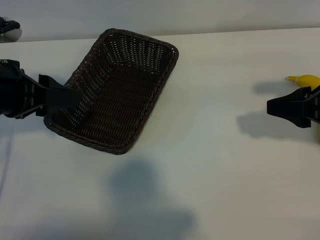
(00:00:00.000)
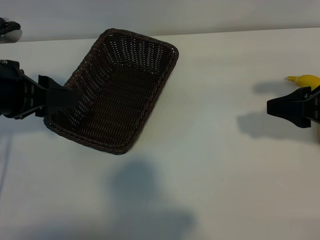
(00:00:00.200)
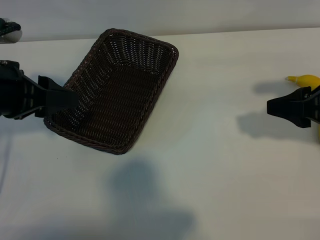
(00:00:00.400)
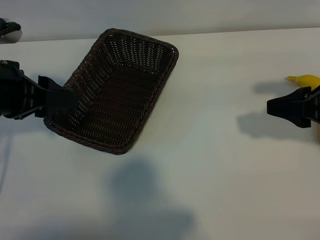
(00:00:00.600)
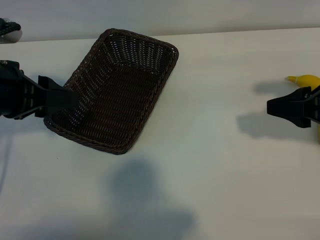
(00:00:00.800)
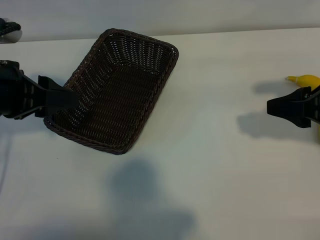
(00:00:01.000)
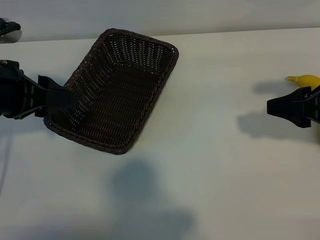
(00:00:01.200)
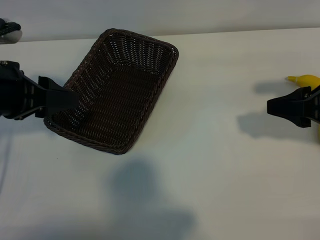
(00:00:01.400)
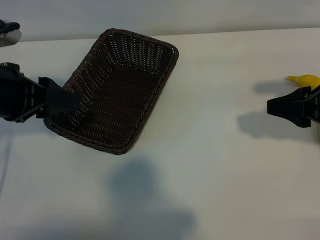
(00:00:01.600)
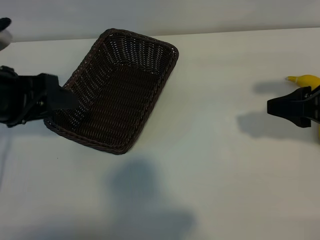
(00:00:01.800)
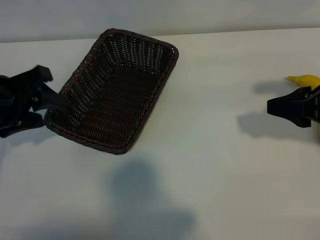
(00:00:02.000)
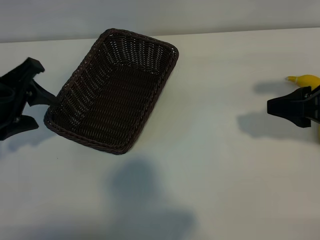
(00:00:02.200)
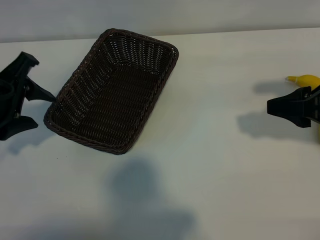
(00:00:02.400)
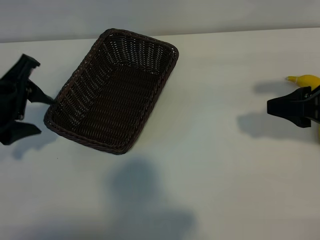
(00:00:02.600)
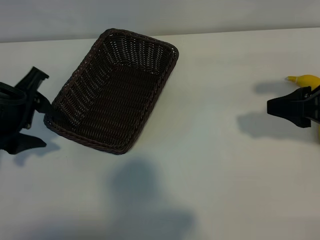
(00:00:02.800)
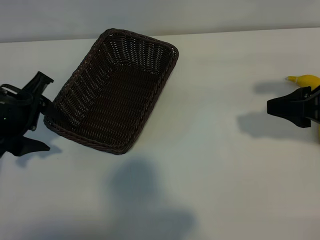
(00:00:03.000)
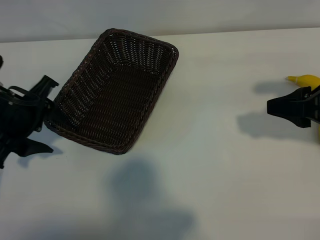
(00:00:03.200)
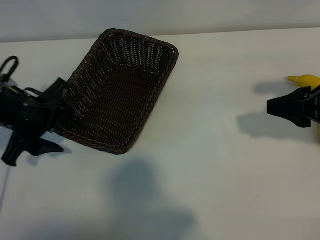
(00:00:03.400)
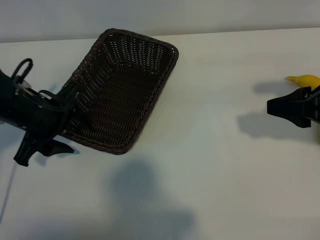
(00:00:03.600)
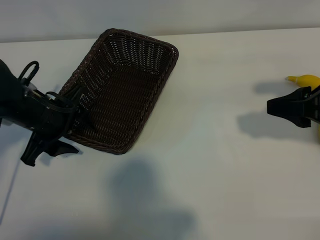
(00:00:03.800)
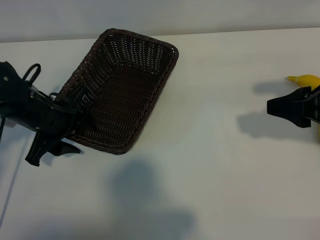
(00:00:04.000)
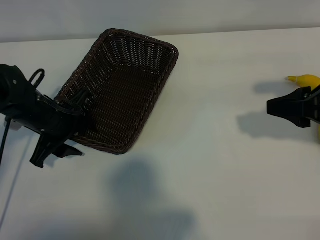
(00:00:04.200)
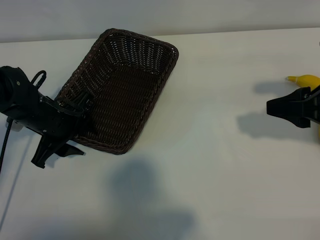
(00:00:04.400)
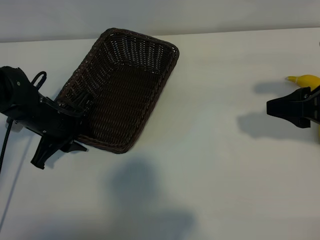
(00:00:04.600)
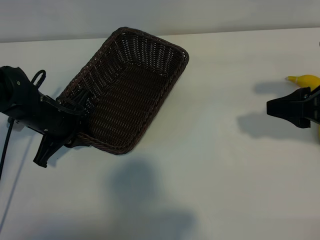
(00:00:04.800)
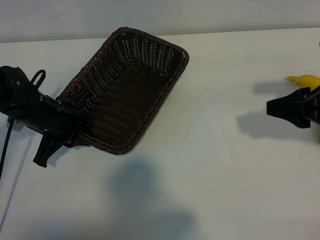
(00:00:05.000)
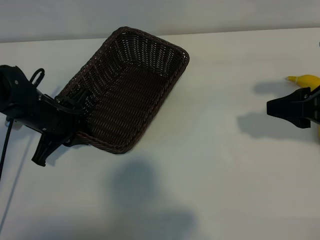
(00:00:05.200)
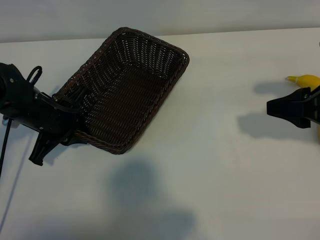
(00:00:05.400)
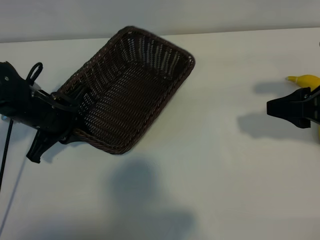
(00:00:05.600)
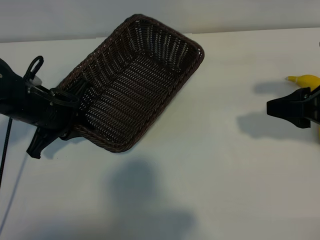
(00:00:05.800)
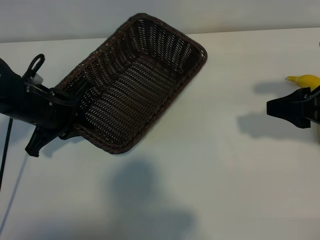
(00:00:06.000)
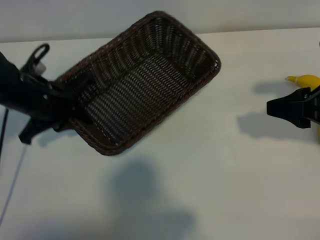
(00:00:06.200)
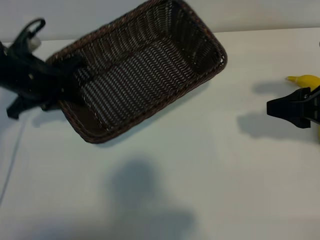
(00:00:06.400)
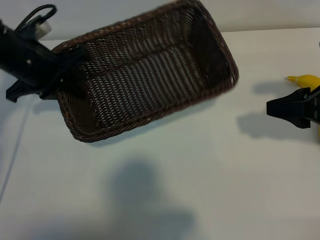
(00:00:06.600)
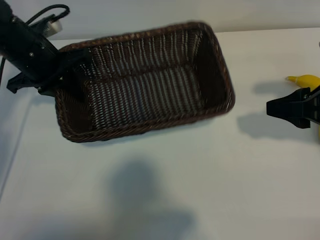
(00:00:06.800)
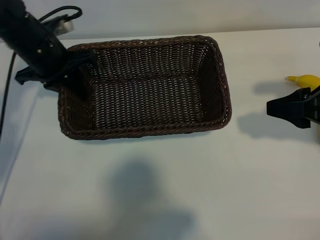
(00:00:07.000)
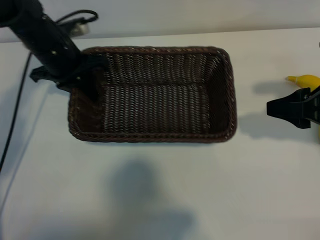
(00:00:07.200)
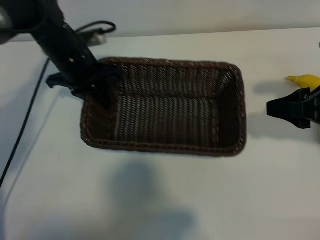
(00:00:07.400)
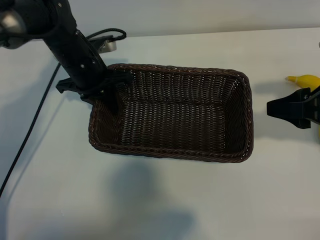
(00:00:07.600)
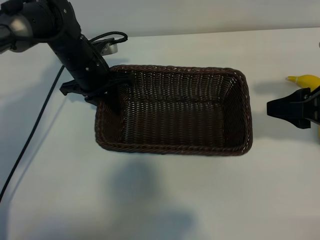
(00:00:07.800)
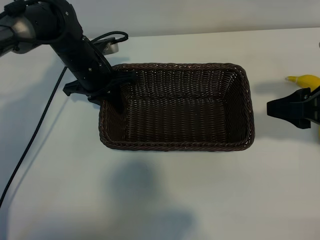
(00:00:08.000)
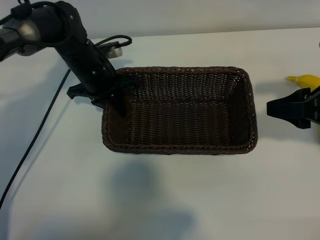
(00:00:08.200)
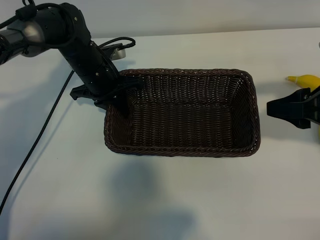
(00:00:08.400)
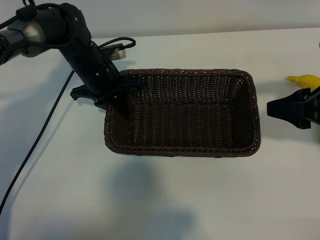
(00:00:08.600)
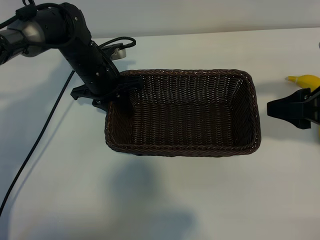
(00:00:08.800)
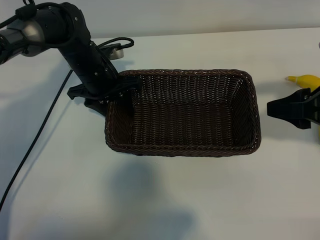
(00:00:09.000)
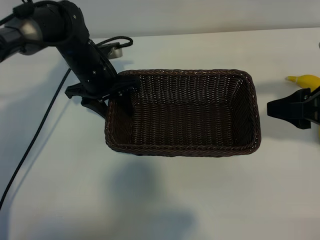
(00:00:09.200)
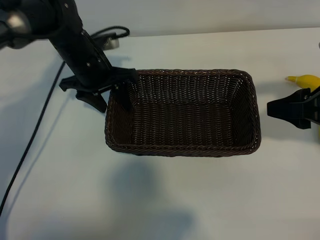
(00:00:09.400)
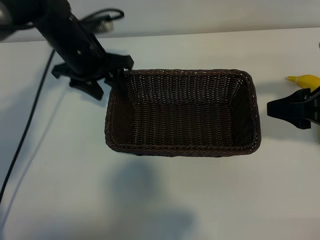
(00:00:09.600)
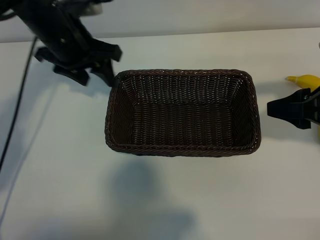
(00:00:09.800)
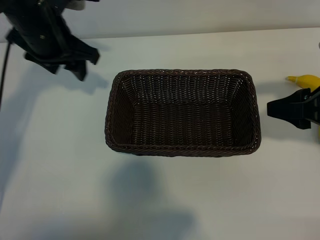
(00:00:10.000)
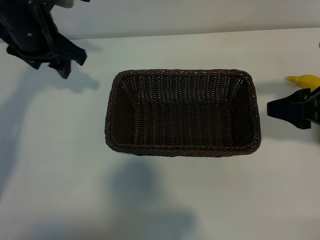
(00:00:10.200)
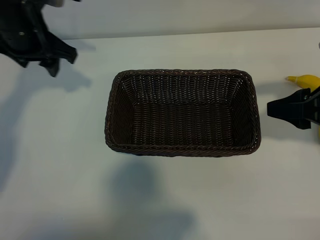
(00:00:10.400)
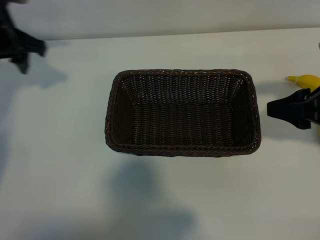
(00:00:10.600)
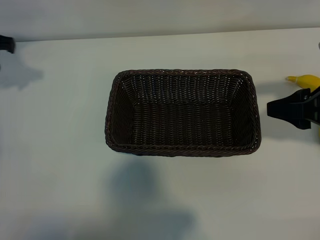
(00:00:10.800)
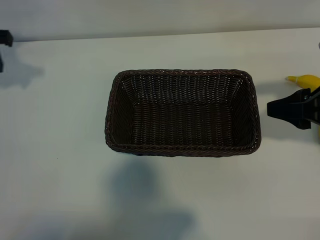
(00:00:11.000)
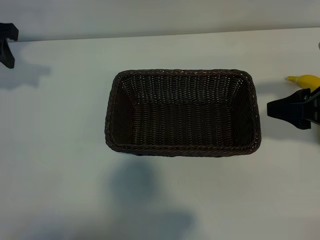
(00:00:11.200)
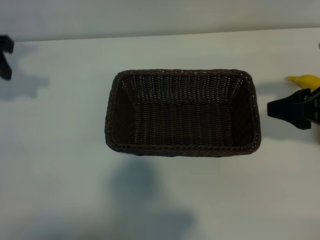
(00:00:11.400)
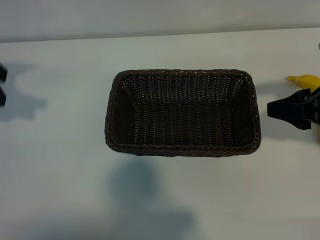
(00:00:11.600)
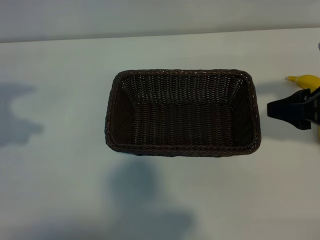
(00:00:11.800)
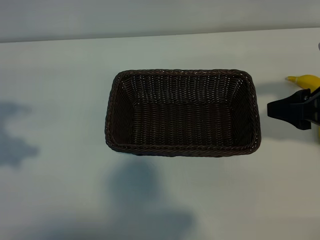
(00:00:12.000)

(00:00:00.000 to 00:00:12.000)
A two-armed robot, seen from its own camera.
Task of the whole recording: pick up the banana and put it into the basket.
Step, 00:00:00.000 - 00:00:05.000: Grasp the basket with the left gripper.
Step, 00:00:05.200 - 00:00:09.200: Place the basket in the center of the table with the left gripper.

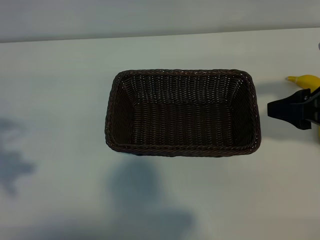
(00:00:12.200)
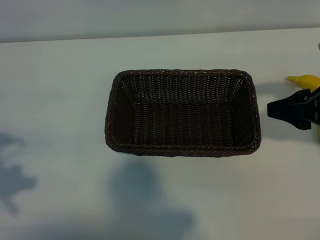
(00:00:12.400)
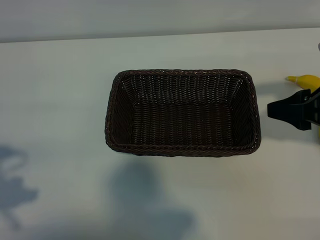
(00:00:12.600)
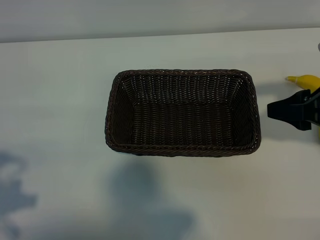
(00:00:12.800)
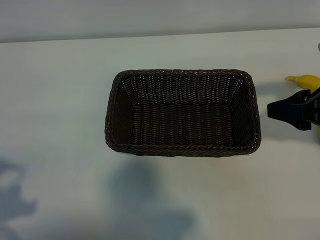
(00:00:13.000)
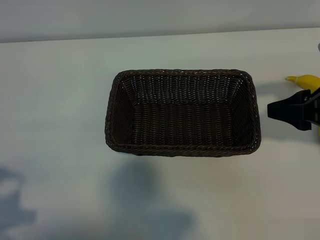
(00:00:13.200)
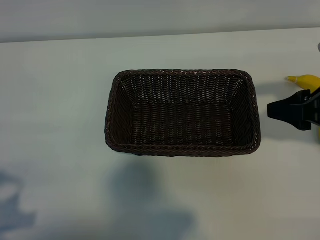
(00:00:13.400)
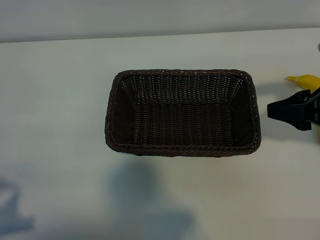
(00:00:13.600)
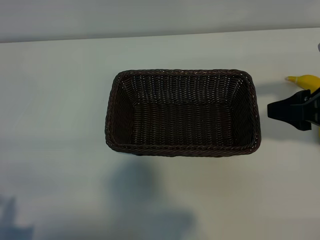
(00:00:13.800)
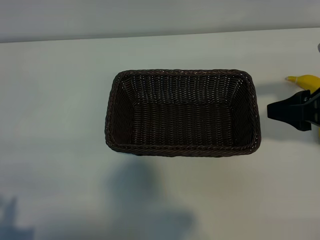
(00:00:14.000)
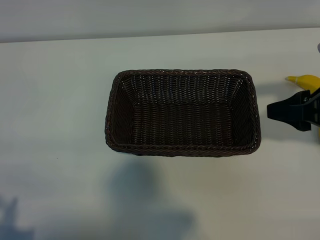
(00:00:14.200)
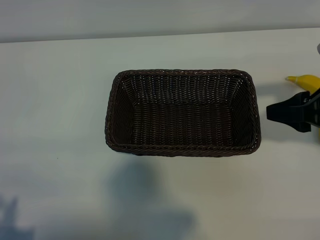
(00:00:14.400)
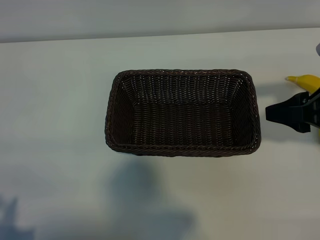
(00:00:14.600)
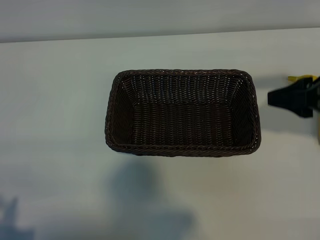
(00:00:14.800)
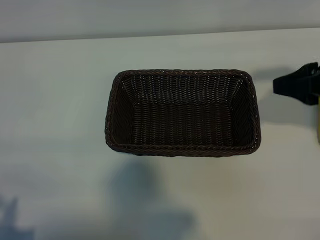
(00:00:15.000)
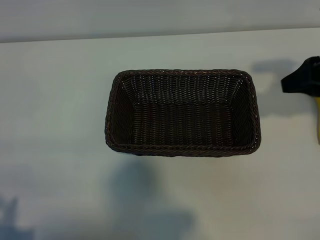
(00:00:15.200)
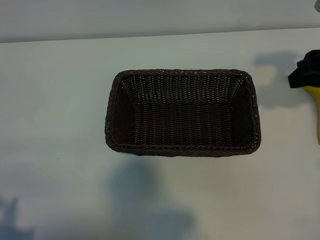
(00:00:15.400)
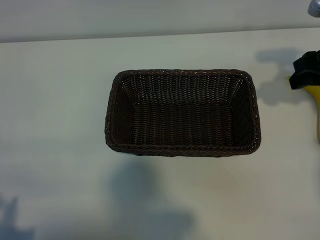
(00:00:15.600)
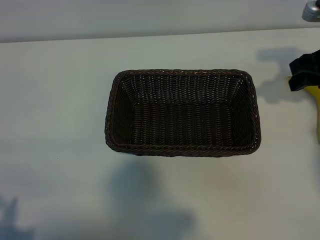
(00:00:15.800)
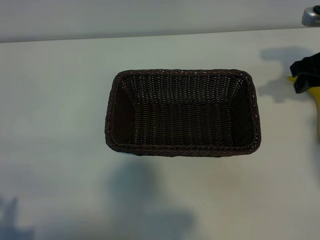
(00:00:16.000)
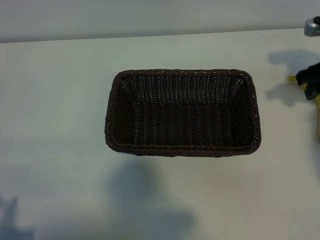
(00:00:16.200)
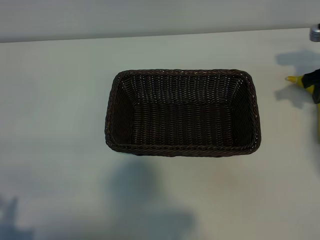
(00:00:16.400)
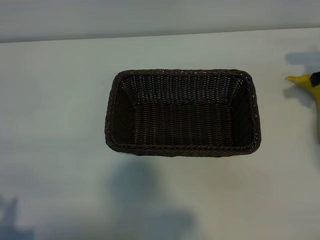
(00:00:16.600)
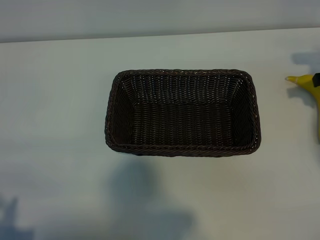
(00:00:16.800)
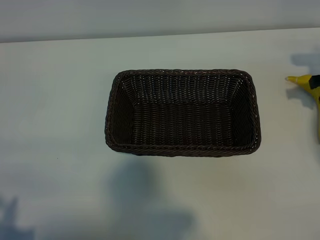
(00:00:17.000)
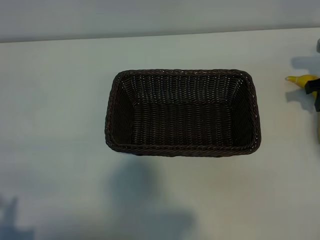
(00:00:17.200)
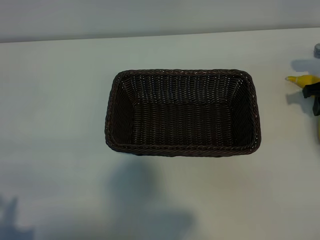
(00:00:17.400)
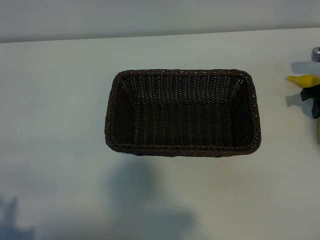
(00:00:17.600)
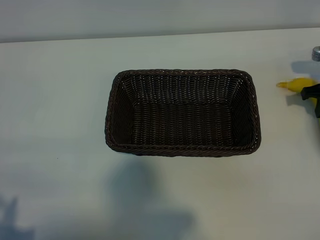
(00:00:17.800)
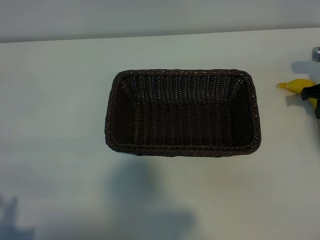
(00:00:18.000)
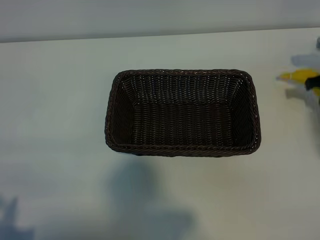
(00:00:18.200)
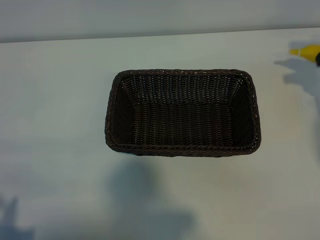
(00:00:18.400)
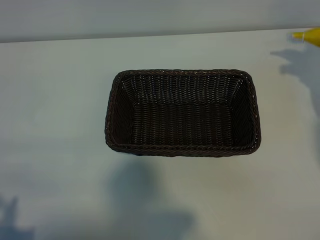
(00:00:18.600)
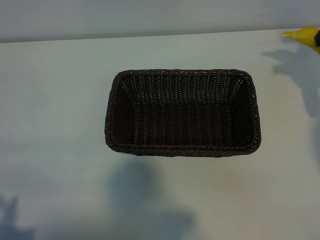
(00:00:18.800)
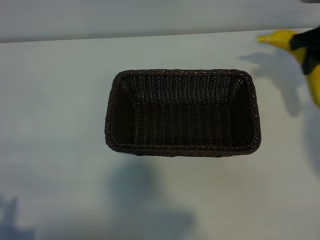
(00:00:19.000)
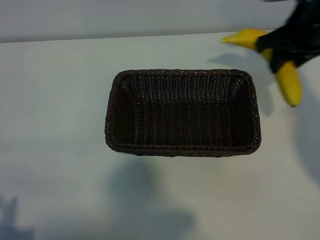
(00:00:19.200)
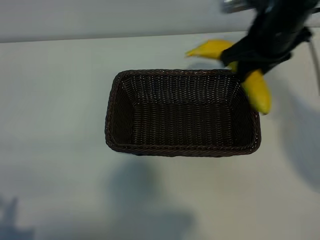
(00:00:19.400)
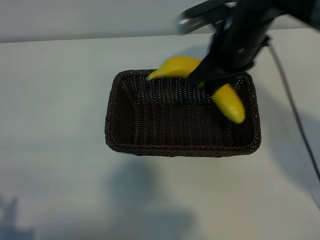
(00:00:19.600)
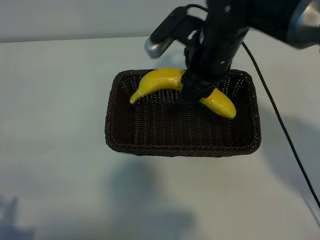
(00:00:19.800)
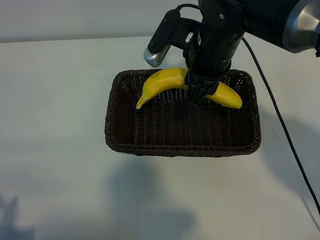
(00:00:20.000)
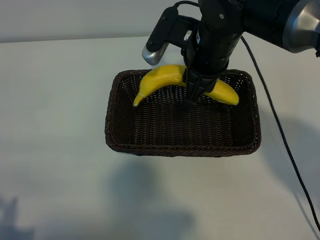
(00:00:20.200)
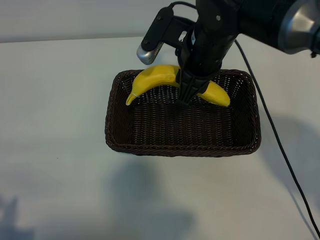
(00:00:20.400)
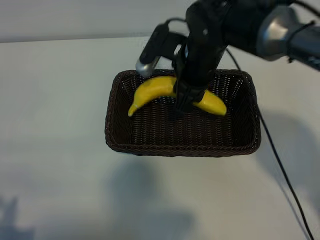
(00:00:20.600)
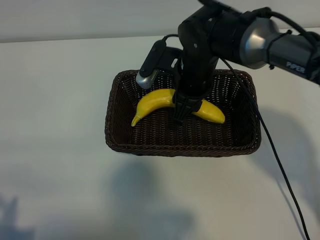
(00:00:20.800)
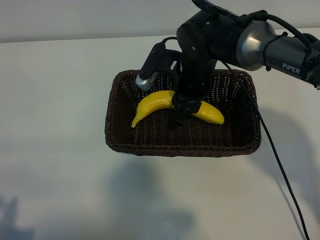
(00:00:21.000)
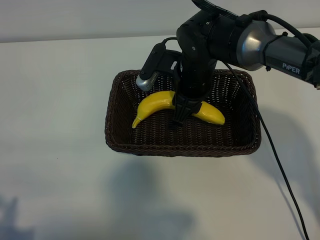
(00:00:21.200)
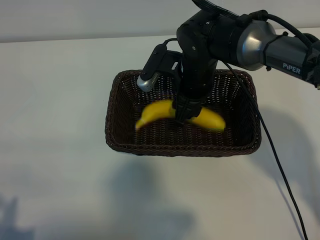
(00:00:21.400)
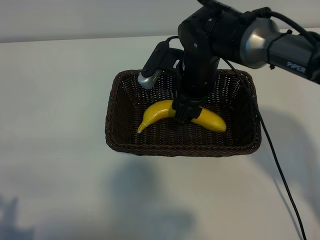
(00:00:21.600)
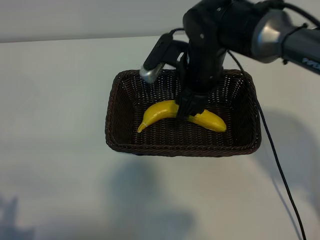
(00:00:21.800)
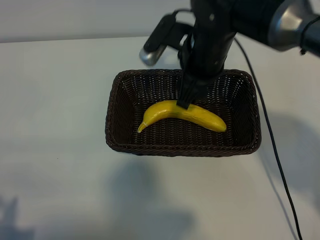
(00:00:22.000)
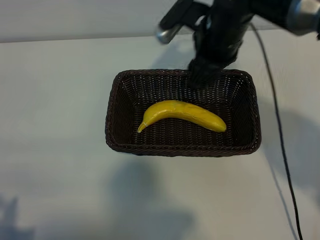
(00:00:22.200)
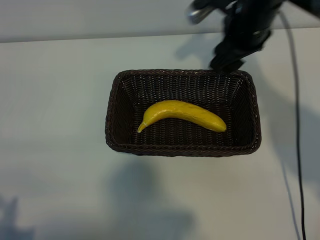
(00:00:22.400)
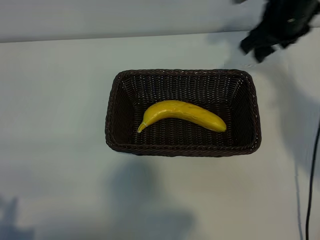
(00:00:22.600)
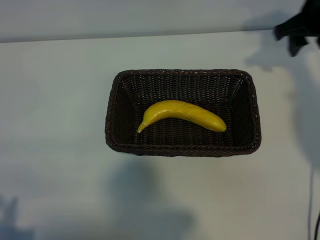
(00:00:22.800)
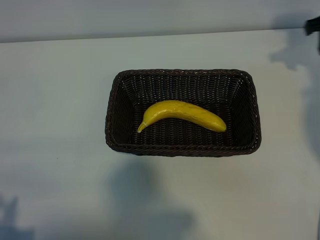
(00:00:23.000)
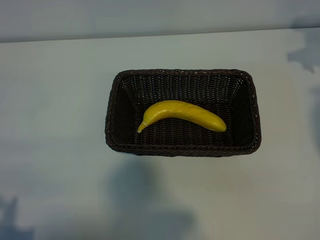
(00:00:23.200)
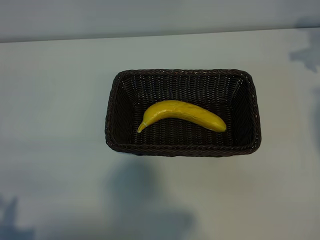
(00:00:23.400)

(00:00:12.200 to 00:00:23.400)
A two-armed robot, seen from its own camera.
Task of the whole recording: pick up the banana and put it into the basket.
Step, 00:00:12.200 - 00:00:18.000: Grasp the banana with right gripper.
Step, 00:00:18.200 - 00:00:21.800: Place the banana in the basket with right gripper.
